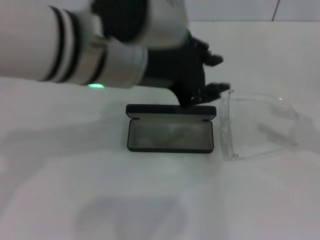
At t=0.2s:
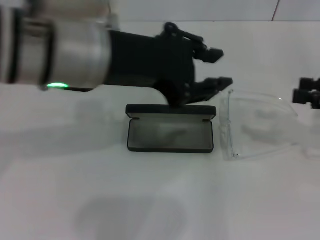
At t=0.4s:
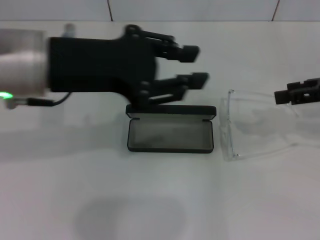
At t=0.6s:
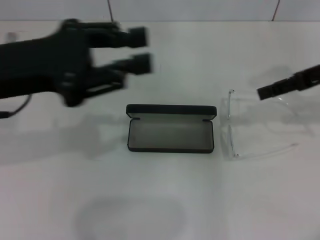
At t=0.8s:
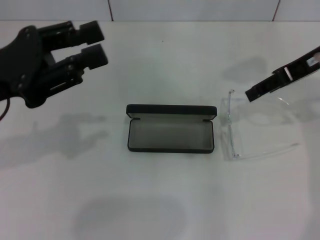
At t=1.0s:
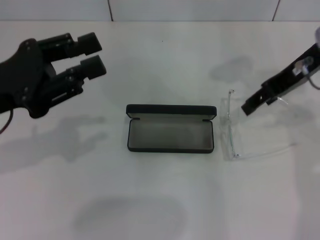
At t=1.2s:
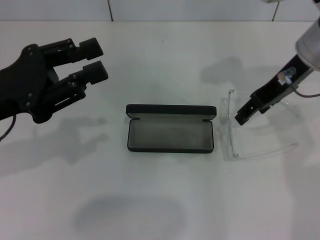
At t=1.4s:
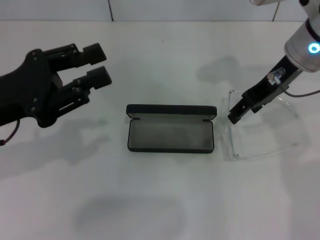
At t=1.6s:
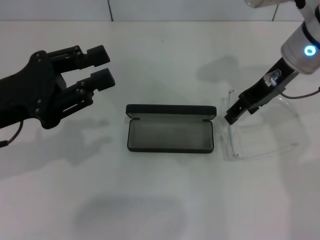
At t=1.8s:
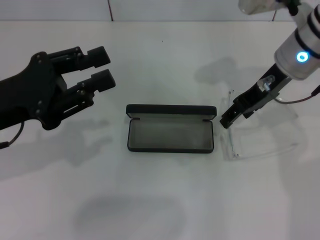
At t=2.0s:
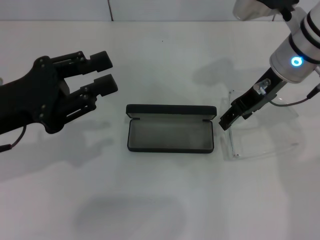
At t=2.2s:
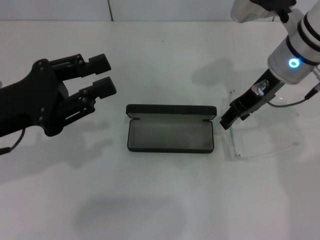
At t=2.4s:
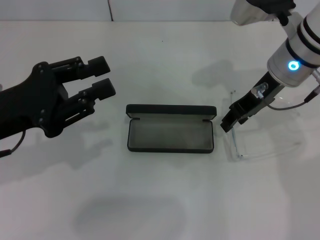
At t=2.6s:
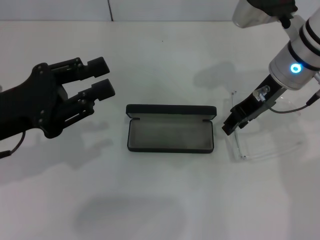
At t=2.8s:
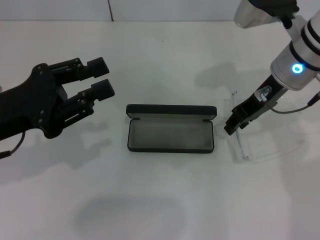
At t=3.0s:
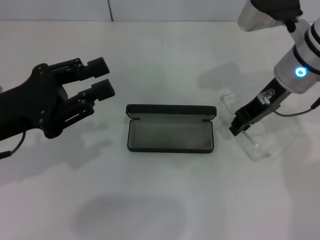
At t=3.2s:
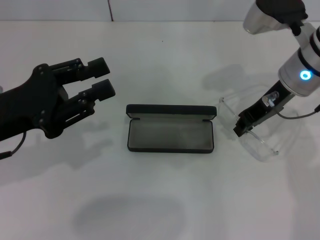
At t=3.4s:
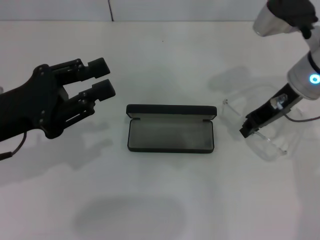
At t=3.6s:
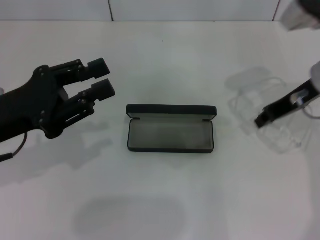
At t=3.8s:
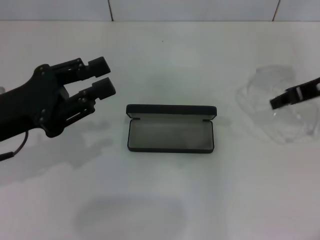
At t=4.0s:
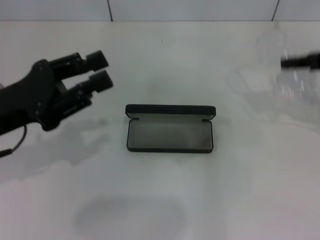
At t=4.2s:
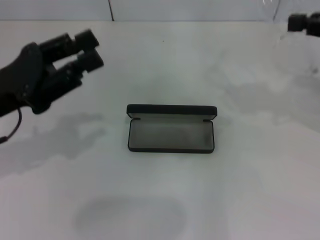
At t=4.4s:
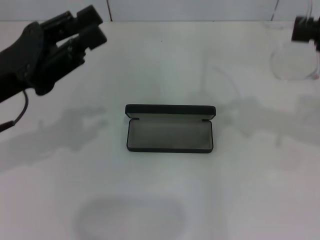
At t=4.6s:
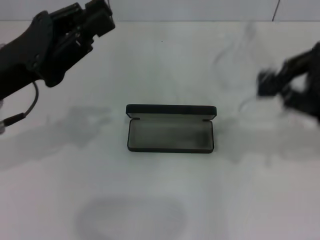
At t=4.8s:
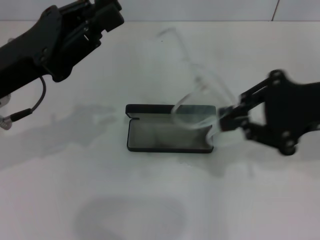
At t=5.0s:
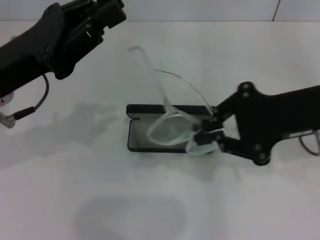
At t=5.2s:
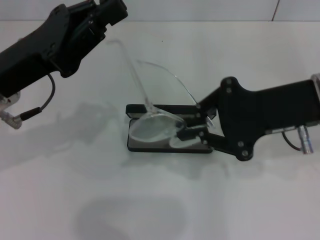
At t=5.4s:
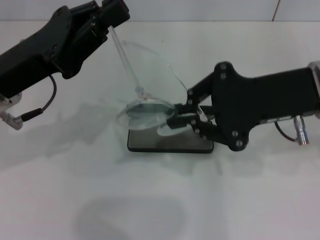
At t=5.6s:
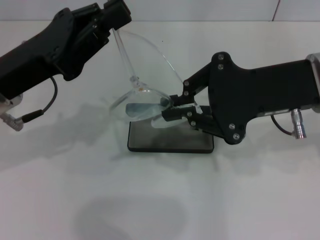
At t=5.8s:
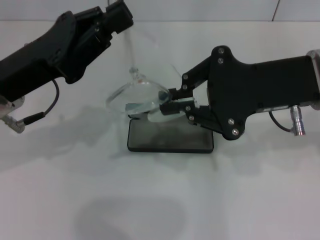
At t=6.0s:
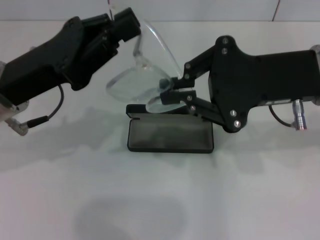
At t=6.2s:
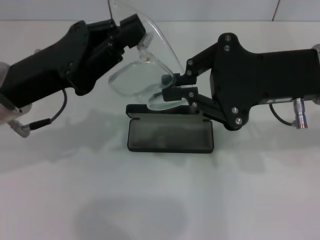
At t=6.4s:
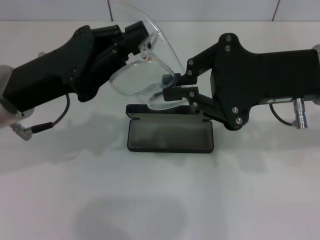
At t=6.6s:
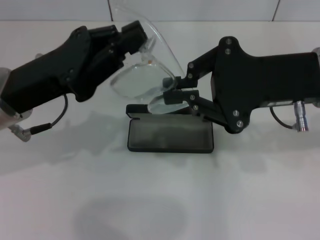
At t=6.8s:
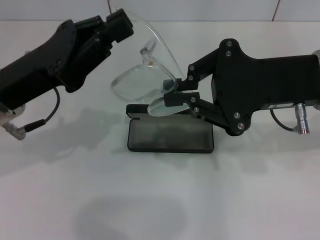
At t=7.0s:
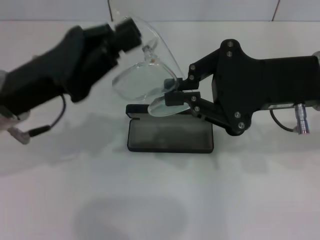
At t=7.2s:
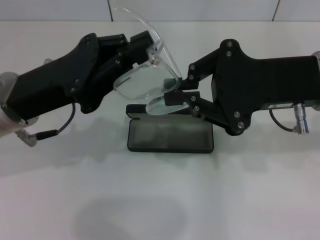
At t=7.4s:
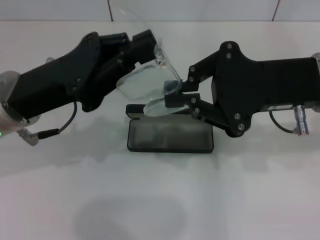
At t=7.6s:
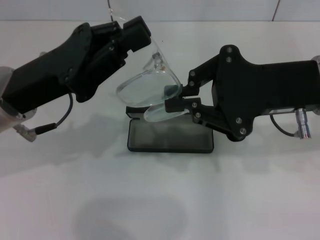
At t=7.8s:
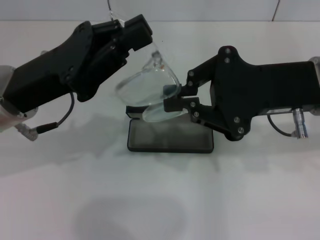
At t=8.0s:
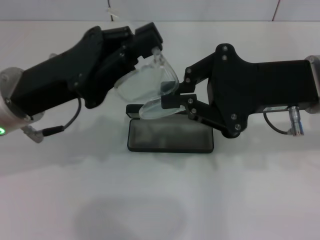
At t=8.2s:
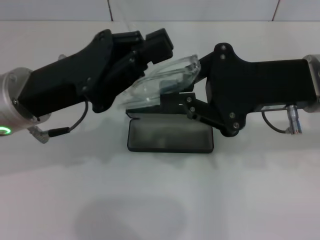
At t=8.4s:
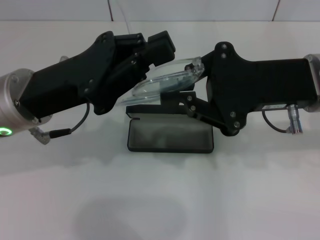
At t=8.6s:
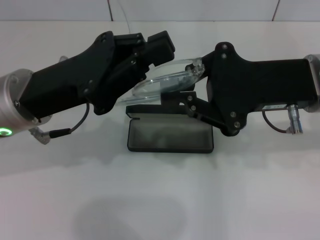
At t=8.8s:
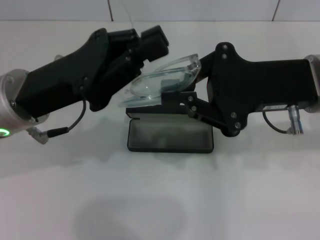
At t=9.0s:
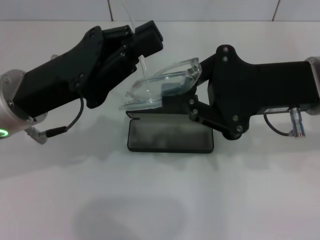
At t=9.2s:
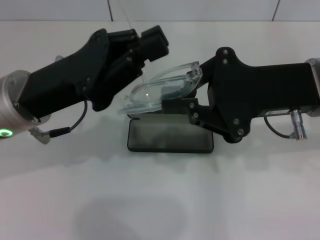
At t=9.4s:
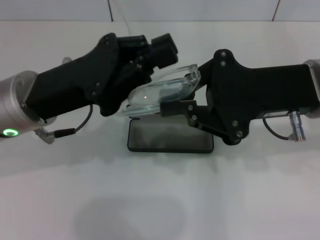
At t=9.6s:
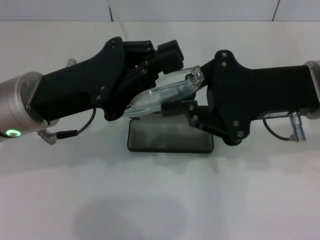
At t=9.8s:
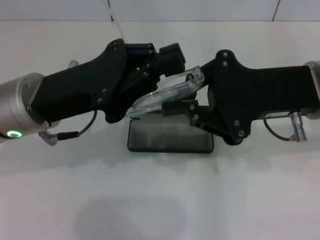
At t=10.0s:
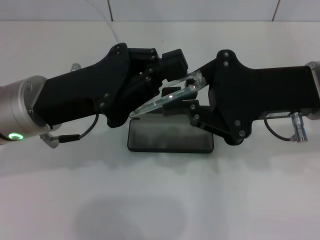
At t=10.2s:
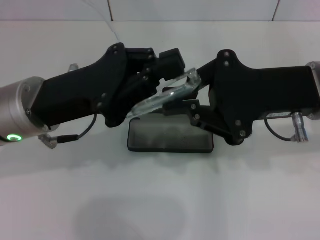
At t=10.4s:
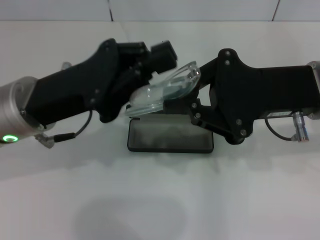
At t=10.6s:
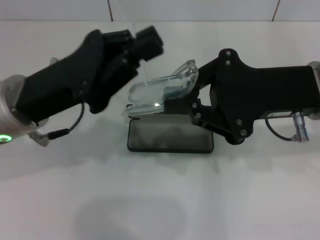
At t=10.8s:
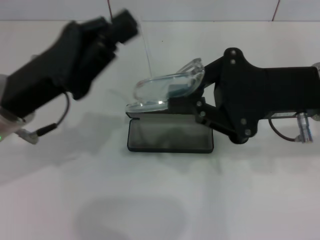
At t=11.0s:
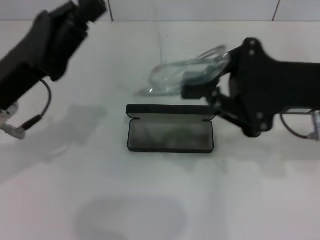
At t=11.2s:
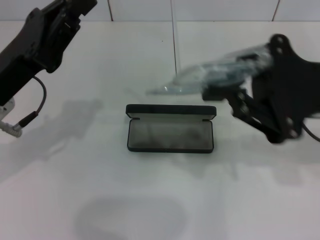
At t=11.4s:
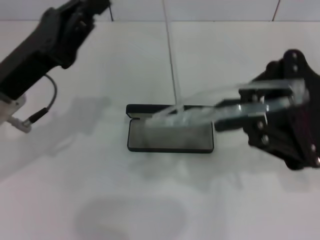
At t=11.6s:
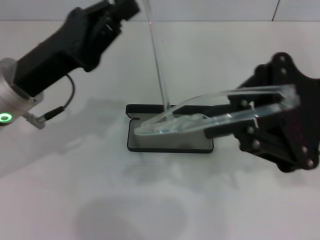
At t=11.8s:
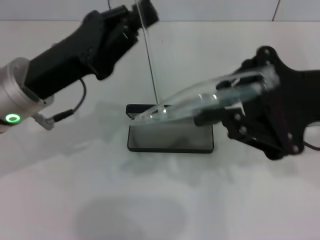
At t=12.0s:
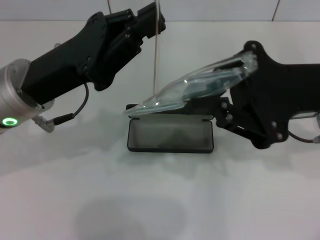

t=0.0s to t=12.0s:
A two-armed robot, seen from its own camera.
Step, t=0.0s to t=3.2s: Grab the eyeglass frame with your right hand.
t=0.0s to t=1.6s: The left gripper goes roughly 20 cm to the left and downward, while the right gripper moves to the left and forward, about 25 cm.
t=1.6s to t=3.0s: The right gripper closes up.
t=3.0s to t=4.4s: The right gripper moves to the right, backward and upward, approximately 20 cm.
t=4.4s to t=6.0s: The left gripper closes up. Meanwhile the right gripper is displaced to the left by roughly 15 cm.
t=6.0s to t=10.4s: The grippers stay close to where they were, moving slightly.

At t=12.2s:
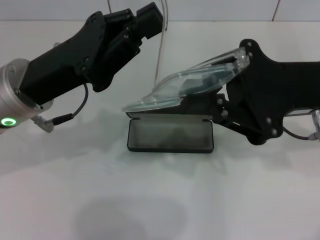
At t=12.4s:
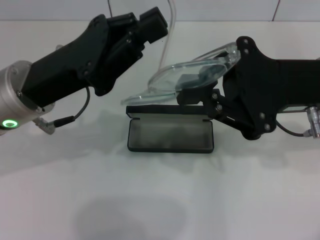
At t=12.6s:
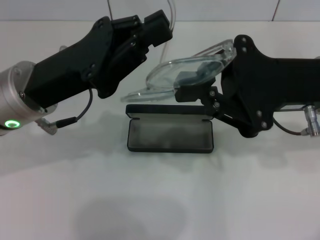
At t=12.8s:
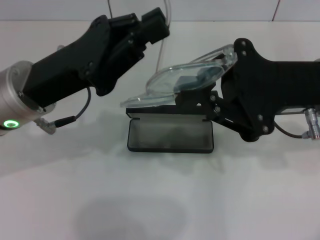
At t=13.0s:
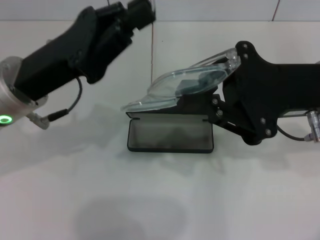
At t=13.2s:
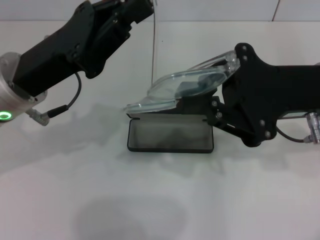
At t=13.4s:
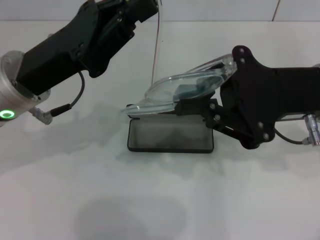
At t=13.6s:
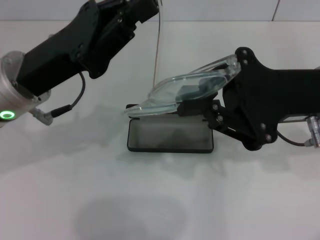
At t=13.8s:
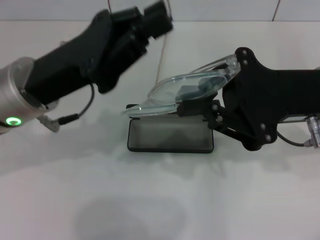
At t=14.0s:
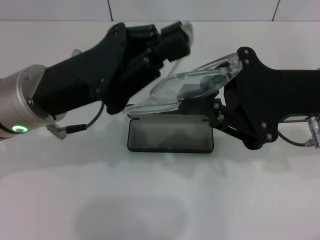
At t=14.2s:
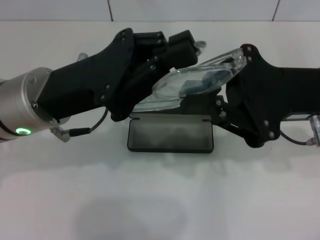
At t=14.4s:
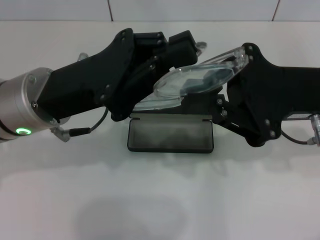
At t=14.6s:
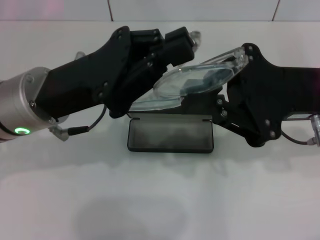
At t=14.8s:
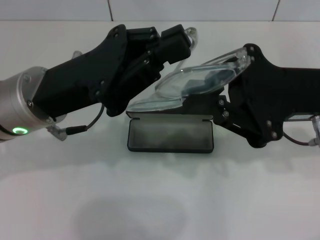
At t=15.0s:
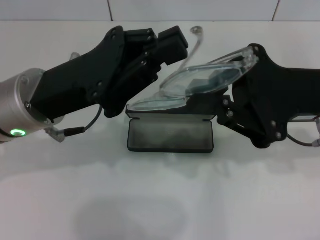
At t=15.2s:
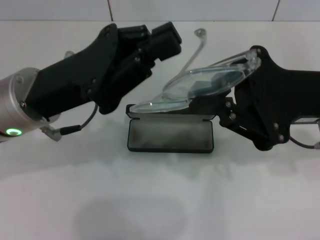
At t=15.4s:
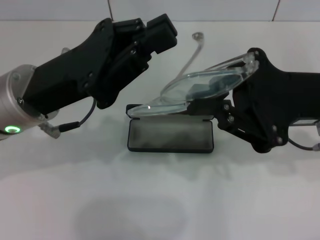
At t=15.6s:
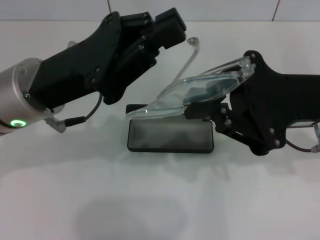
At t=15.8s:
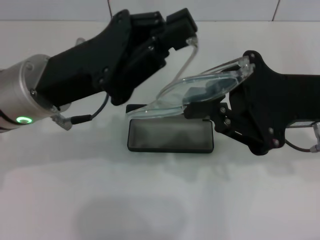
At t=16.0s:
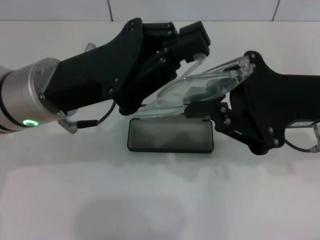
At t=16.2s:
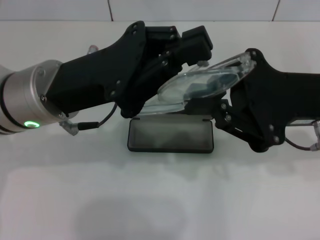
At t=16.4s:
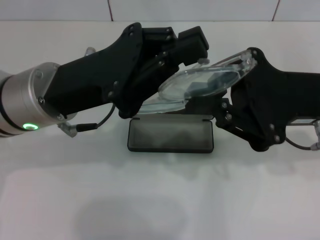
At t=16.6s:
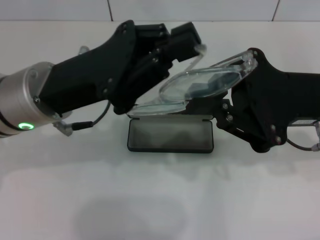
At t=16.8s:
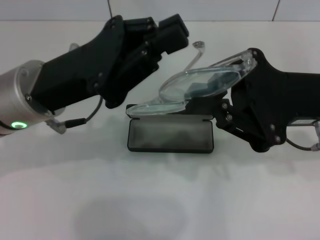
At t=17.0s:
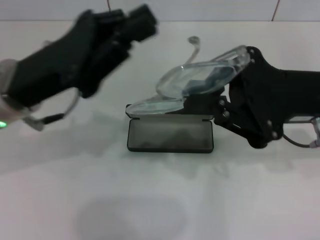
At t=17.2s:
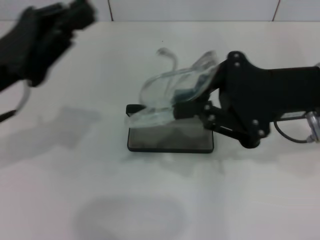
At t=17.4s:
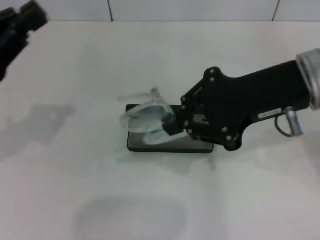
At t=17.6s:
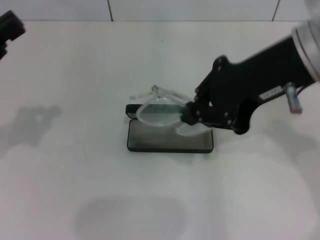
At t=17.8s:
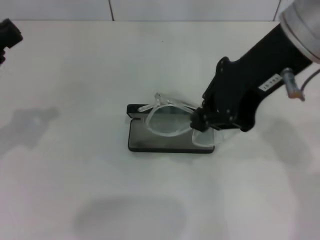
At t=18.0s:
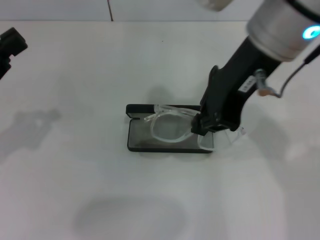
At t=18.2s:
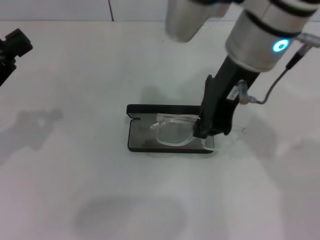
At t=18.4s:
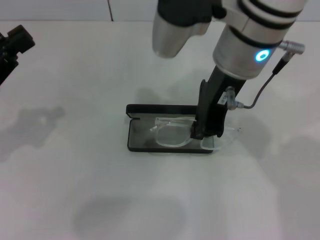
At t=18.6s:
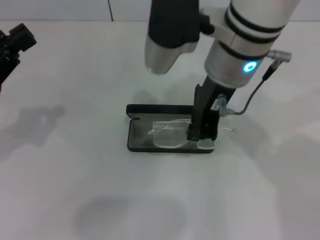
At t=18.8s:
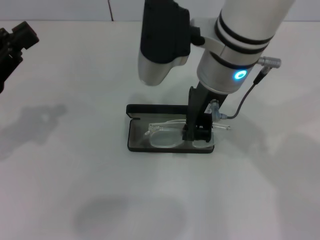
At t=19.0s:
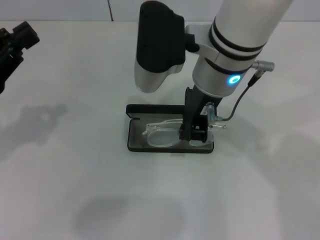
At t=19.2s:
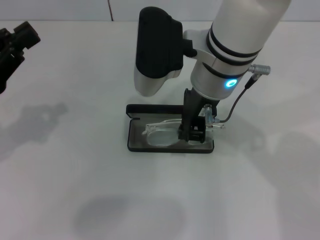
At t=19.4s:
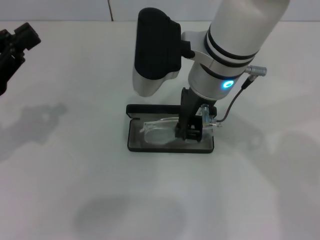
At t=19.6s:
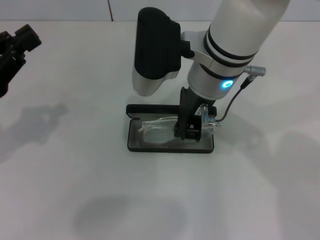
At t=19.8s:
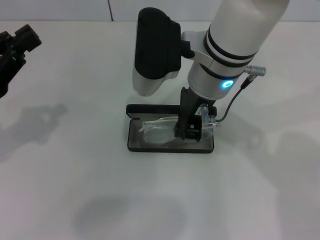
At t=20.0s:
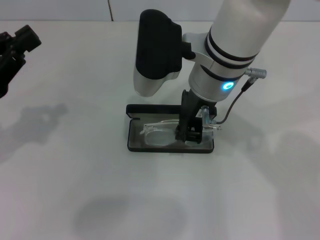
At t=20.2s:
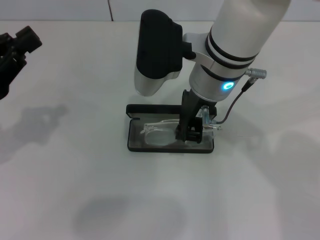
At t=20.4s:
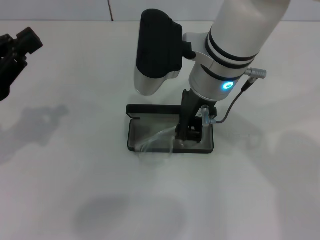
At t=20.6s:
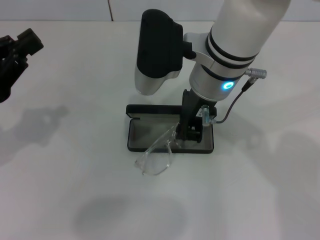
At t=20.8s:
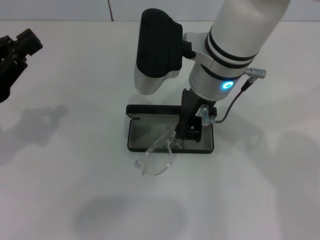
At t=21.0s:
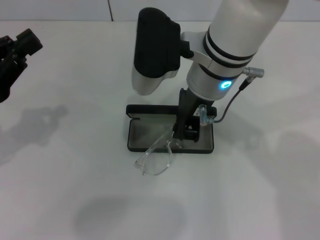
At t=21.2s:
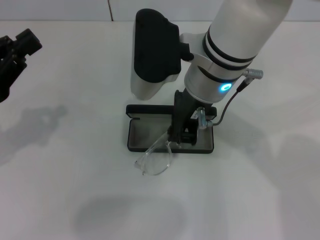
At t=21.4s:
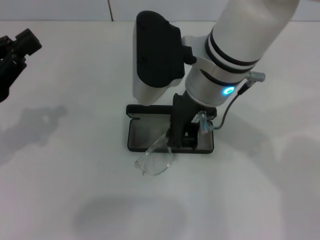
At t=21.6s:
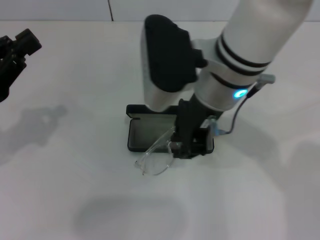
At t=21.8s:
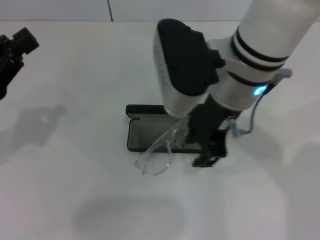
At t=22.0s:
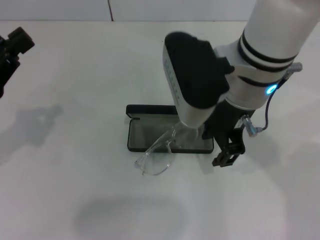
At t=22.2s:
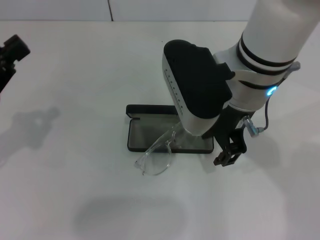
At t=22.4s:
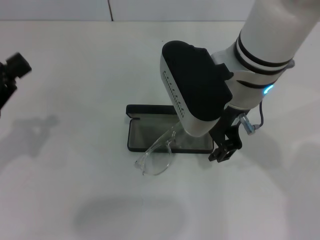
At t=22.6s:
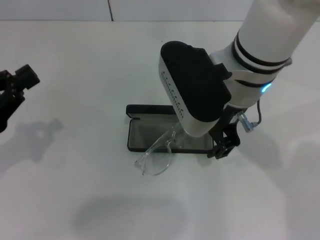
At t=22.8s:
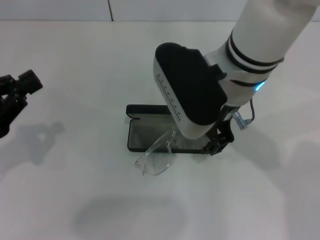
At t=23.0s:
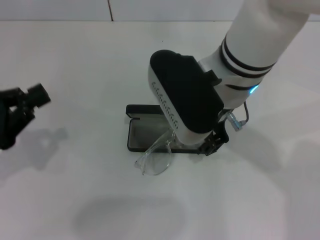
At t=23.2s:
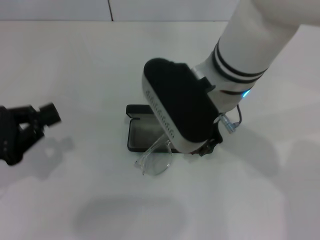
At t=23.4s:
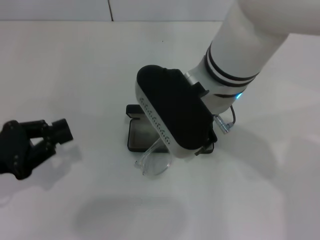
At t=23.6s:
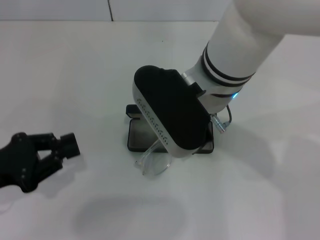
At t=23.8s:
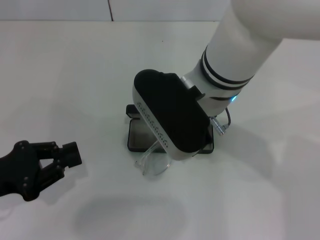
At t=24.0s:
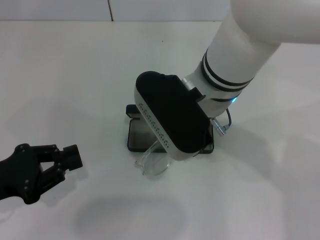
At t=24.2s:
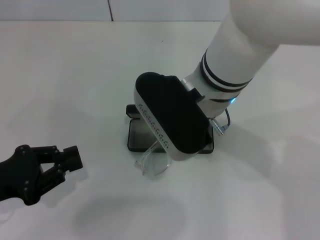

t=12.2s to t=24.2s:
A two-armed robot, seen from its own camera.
Step, t=12.2s to t=16.2s: Fold the frame with your left hand.
t=12.2s to t=13.8s: Neither gripper changes place.
t=13.8s to t=16.6s: The grippers stay close to where they were, moving slightly.
t=16.6s to t=18.2s: The left gripper is displaced to the left by approximately 15 cm, while the right gripper travels to the left and upward by some 15 cm.
t=18.2s to t=19.8s: The right gripper shifts approximately 5 cm downward.
t=19.8s to t=21.2s: The two grippers keep their place.
t=21.2s to t=22.6s: The right gripper opens up.
